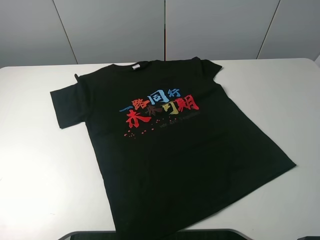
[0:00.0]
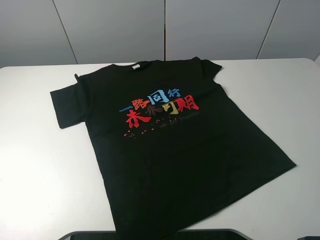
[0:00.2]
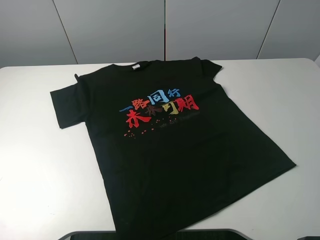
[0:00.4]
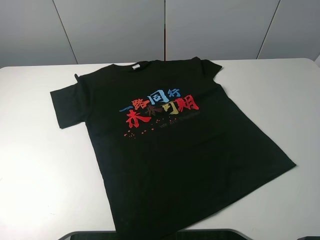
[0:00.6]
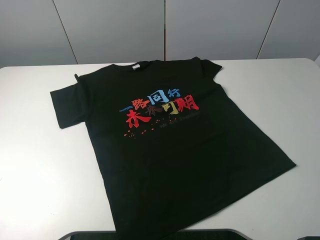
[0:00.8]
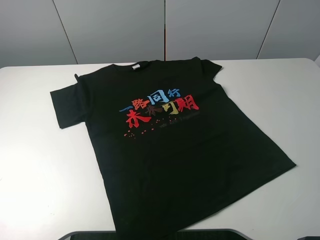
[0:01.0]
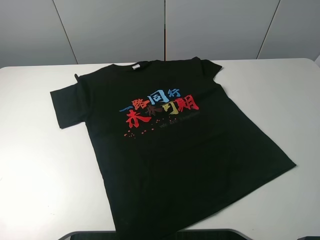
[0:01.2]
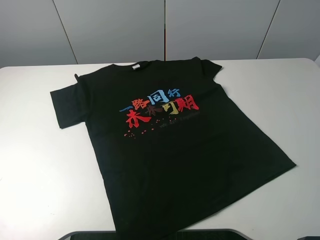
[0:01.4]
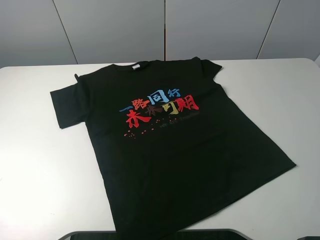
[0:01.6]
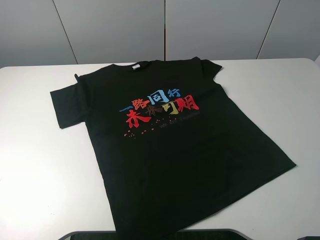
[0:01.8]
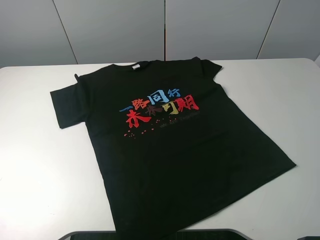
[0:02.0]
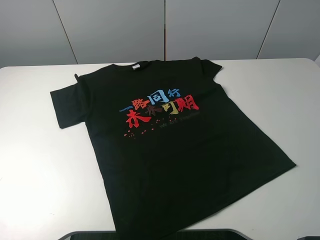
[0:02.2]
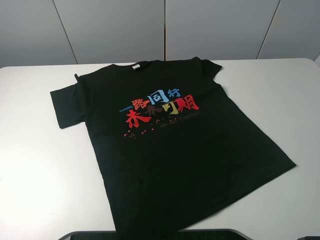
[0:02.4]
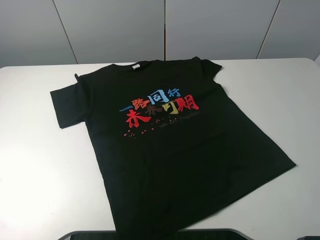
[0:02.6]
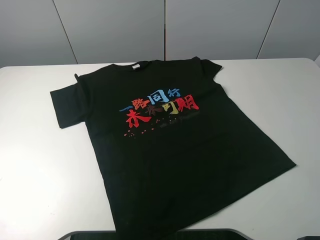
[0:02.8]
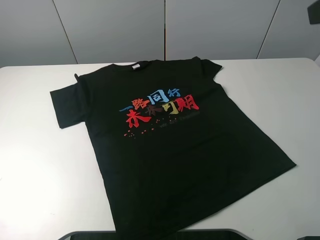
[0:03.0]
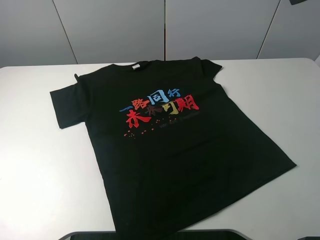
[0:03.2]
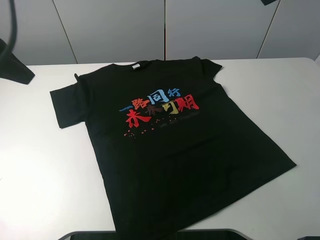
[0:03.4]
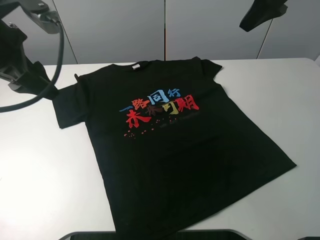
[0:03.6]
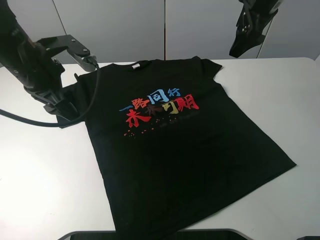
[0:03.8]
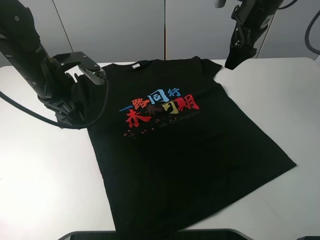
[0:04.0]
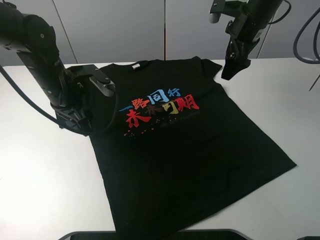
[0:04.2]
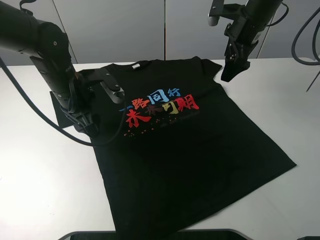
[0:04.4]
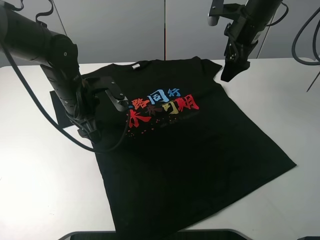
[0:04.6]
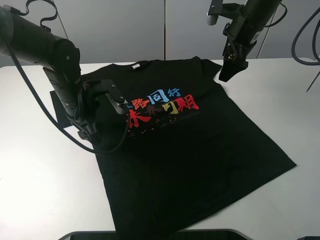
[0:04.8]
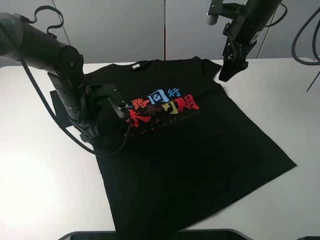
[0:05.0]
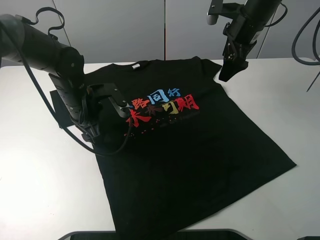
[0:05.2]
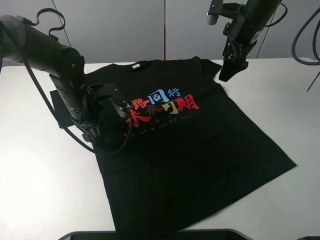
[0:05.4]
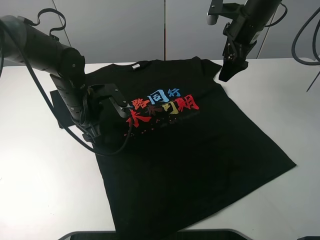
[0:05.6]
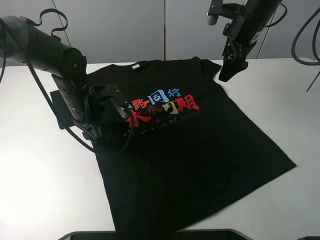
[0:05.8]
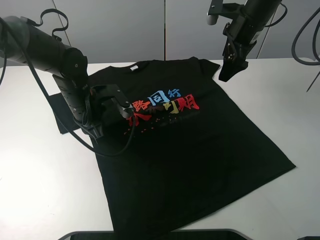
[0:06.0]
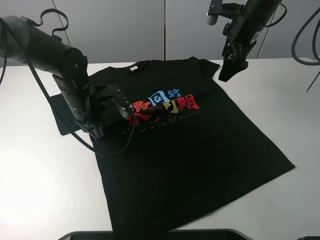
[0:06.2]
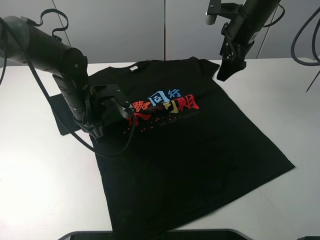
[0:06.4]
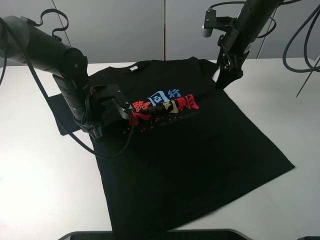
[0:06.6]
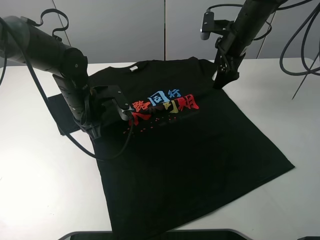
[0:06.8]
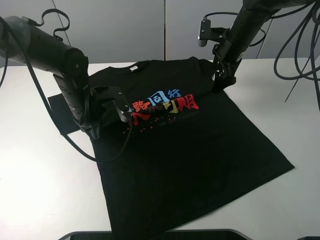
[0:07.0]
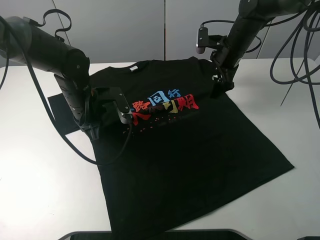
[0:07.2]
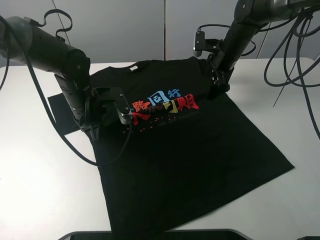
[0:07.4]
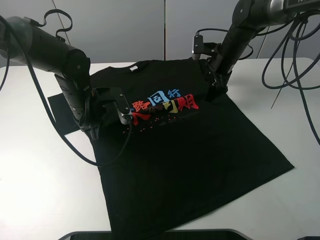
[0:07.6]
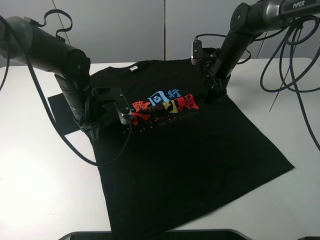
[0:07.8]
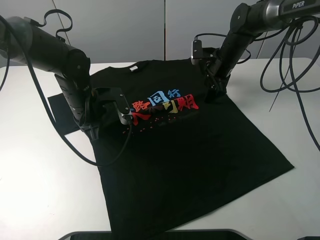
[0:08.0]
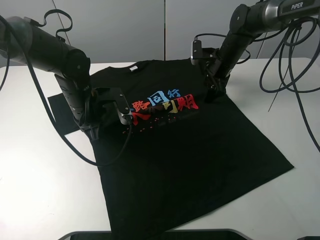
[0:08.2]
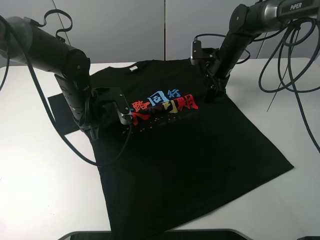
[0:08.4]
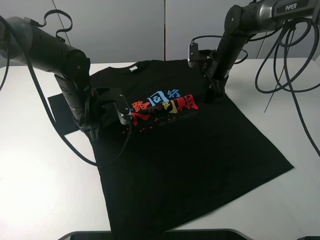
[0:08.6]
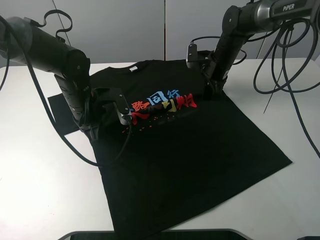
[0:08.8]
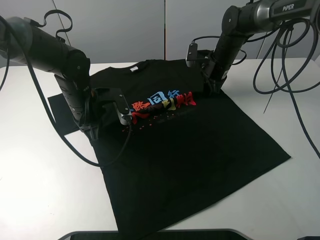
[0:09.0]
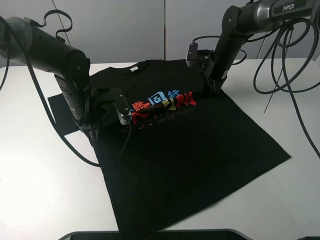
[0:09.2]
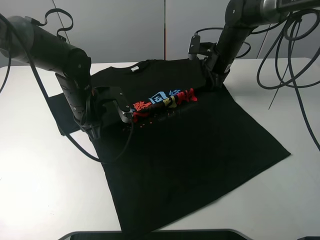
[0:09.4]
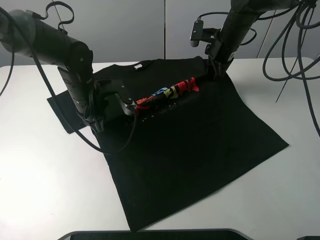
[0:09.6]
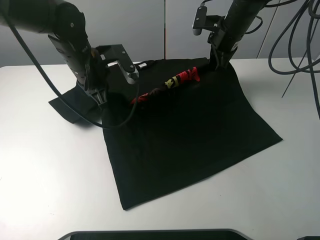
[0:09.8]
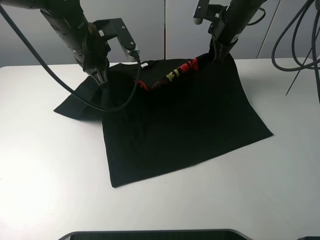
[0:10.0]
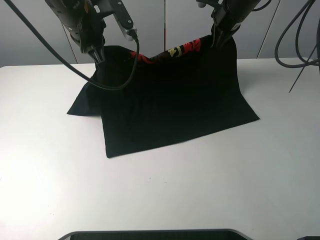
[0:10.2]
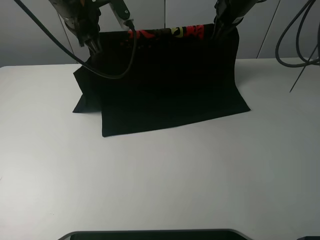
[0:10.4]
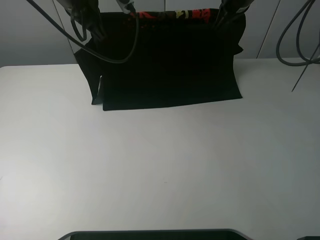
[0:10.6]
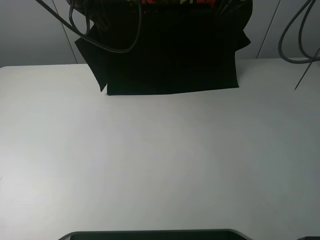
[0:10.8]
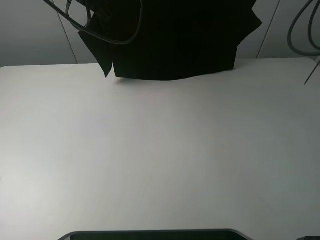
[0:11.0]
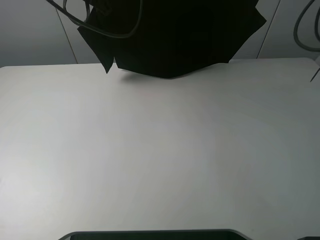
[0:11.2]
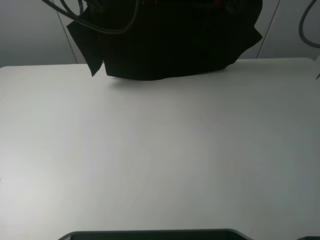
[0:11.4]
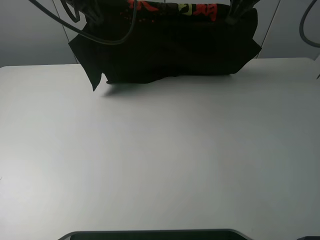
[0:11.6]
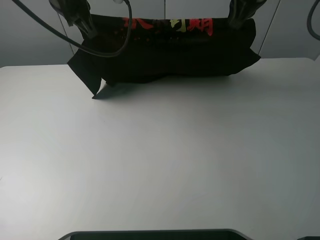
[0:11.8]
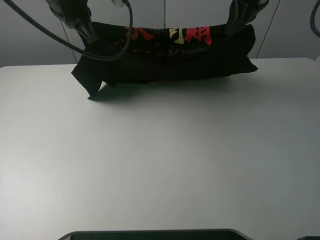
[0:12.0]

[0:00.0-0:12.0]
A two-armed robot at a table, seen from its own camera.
Task of the whole recording: fold the clothes on the table.
Step, 0.0 to 9.0 s: Lift the black T-shirt with the left gripper.
0.0 to 1.6 s: The two grippers keep their place.
3.0 to 4.4 s: The right gripper is displaced forward and downward by about 30 cm; the left gripper goes roughly 30 cm downward, to the right and forward.
4.4 to 6.0 s: The left gripper closes.
6.0 to 7.6 s: The right gripper is displaced downward by approximately 10 cm.
7.6 to 9.0 s: The right gripper closes its fingers.
9.0 to 10.4 s: The right gripper goes roughly 15 cm upward. Meanwhile the left gripper goes roughly 20 cm upward and forward.
10.4 to 12.0 s: The right gripper goes roughly 10 cm backward and upward; the left gripper ends up about 5 cm from where it was.

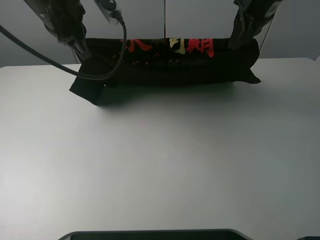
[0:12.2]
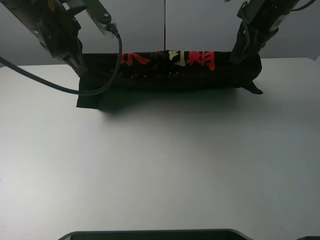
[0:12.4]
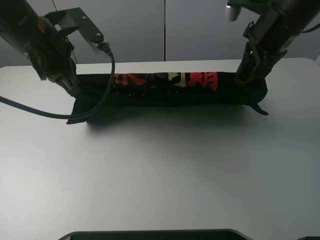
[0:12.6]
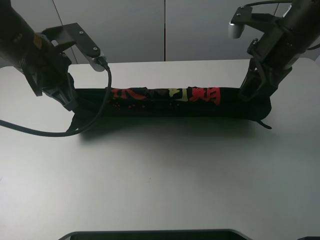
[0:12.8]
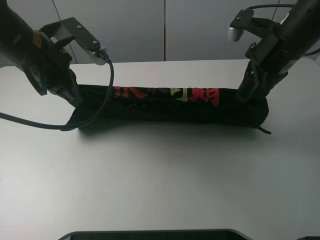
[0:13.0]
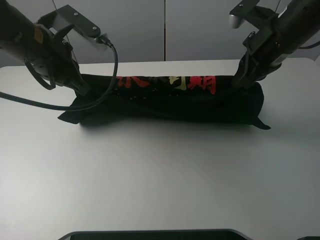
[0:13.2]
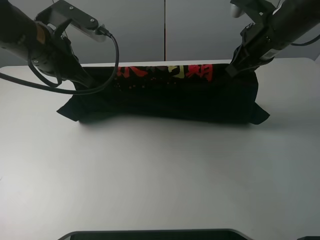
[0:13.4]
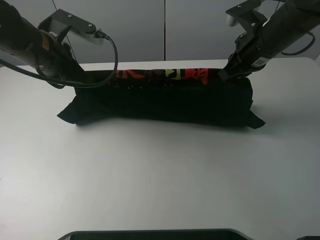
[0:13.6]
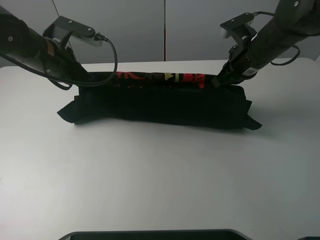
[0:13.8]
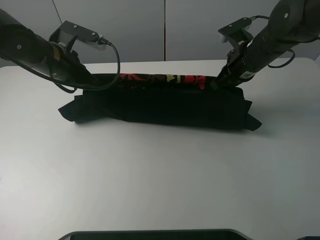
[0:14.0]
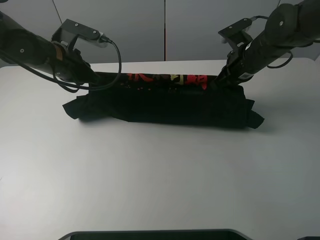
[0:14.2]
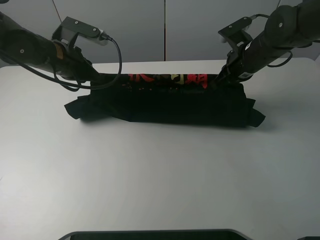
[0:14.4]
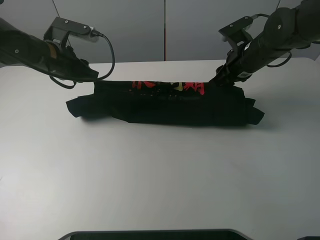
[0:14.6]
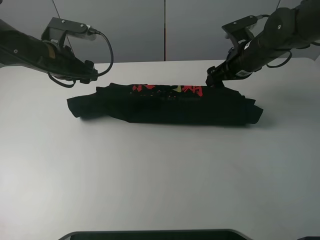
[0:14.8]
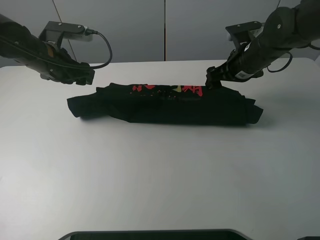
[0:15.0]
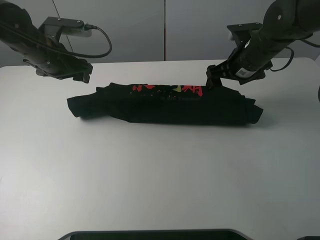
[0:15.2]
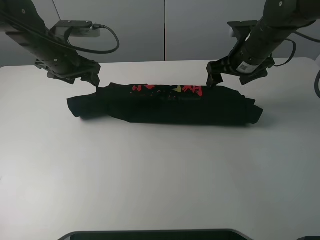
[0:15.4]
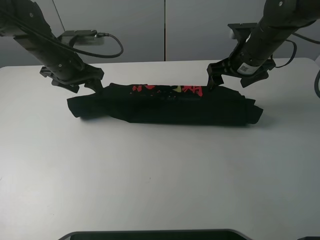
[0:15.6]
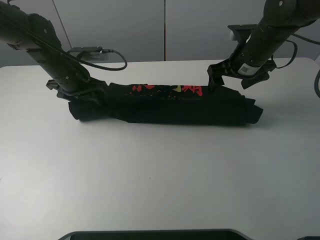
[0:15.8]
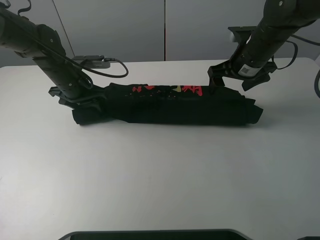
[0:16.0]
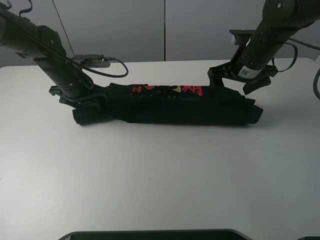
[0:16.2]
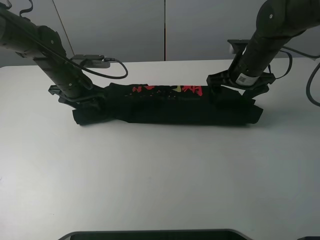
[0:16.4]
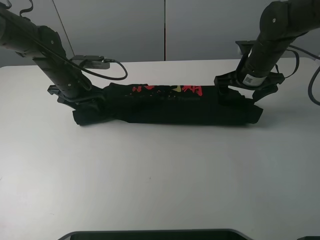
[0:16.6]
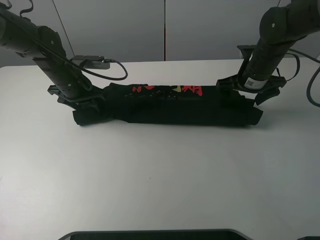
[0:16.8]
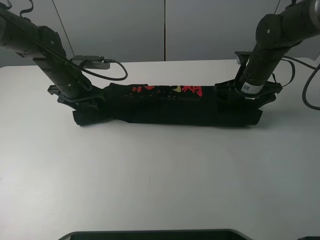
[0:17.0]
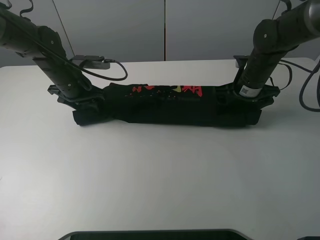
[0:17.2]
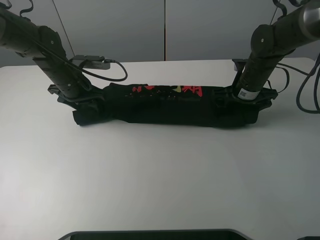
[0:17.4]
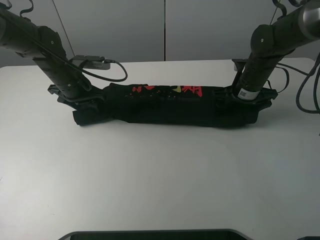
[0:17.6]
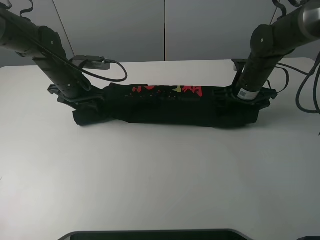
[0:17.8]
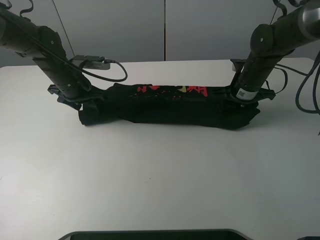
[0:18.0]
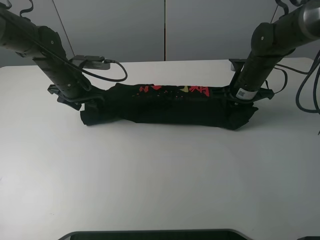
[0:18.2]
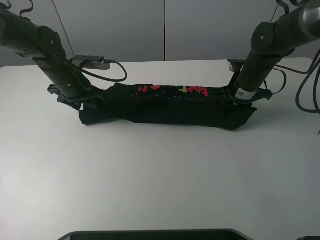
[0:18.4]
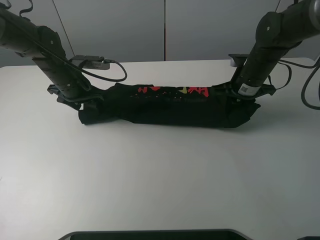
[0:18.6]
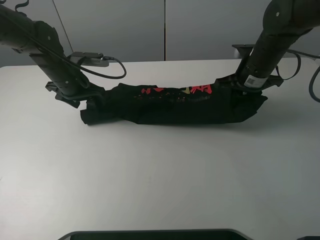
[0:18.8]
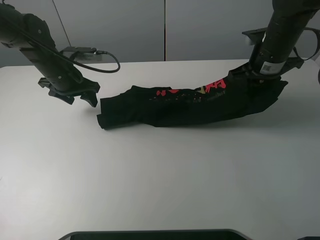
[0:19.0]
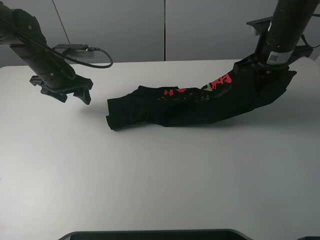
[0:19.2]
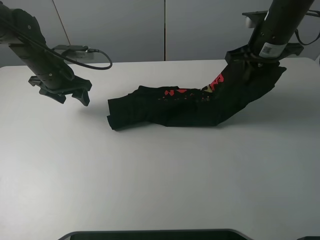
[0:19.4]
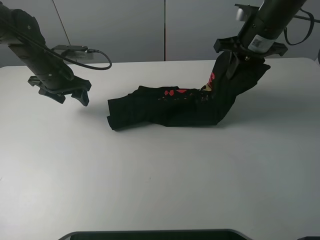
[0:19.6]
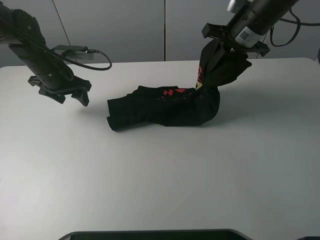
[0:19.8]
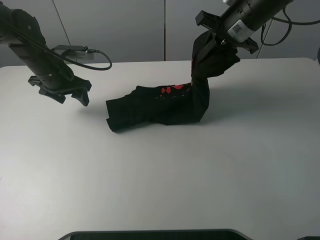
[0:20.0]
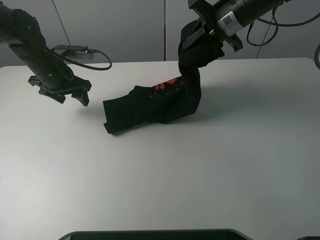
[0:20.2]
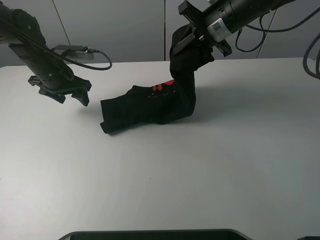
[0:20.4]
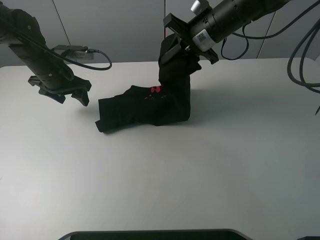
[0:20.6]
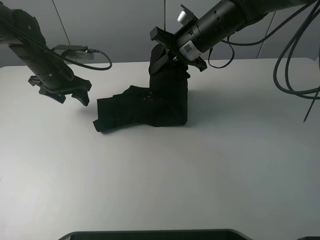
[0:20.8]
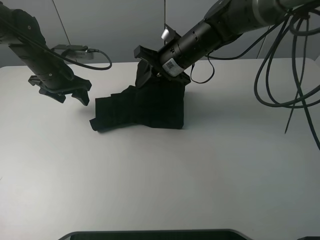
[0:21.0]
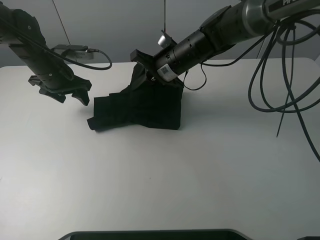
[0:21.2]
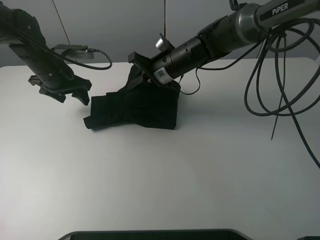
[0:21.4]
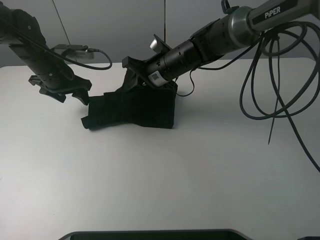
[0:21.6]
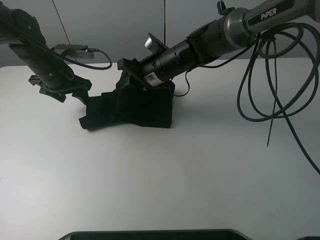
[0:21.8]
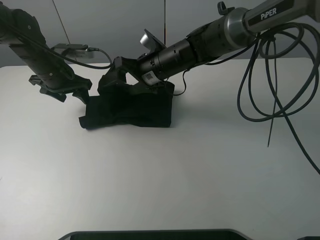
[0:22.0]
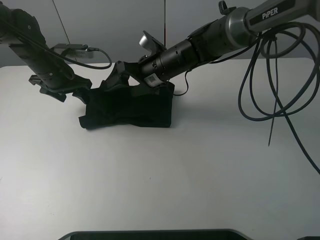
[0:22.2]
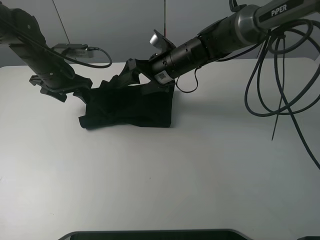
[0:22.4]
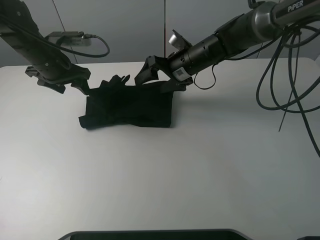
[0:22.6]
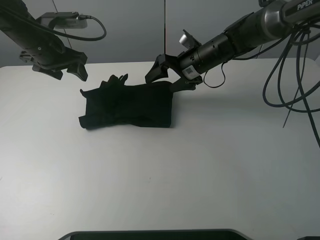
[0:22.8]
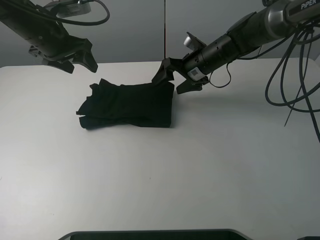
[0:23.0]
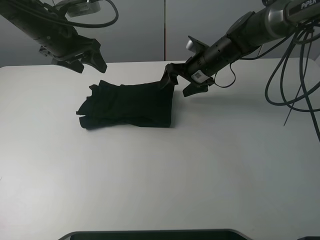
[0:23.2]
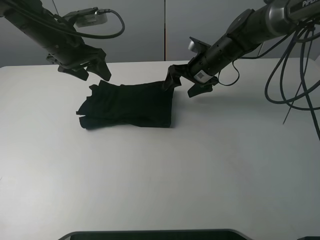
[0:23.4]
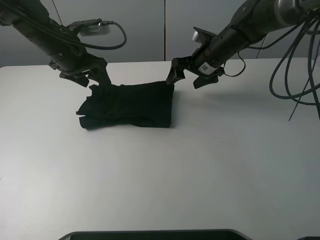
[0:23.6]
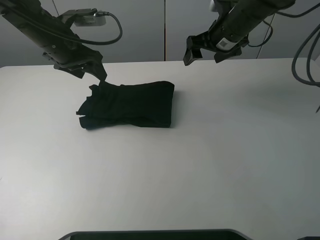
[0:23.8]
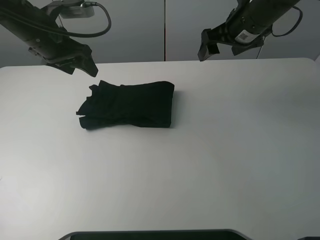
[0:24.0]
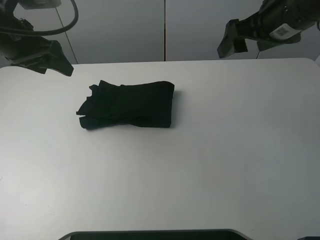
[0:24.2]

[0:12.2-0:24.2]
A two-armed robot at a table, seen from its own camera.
Task of the whole recording: fold the clothes on the table.
Step, 12.2 to 14.8 s: Fold the black T-shirt downward with the left gripper.
Step, 15.2 to 18.0 s: Grasp the black T-shirt with the right gripper.
Step, 18.2 to 22.8 s: Fold the black T-shirt from right to left with right gripper.
12.2 to 13.8 s: Both grippers travel together downward, roughly 10 cm.
13.8 to 15.2 s: The right gripper opens up; the left gripper opens.
15.2 to 16.6 s: The left gripper heads downward, covering approximately 5 cm.
16.6 to 18.2 s: The right gripper closes up.
18.2 to 19.8 s: The right gripper goes about 15 cm upward.
19.8 to 21.2 s: The right gripper travels to the left and downward by some 15 cm.
21.2 to 22.6 s: The right gripper moves approximately 5 cm, and opens its fingers.
22.6 to 24.2 s: The right gripper is displaced upward, to the right and backward by approximately 25 cm, while the left gripper shifts some 10 cm upward and backward.
